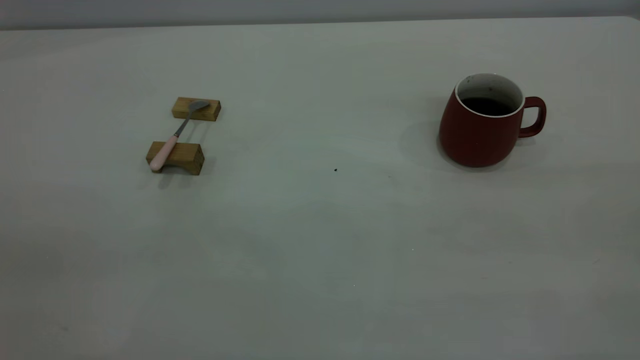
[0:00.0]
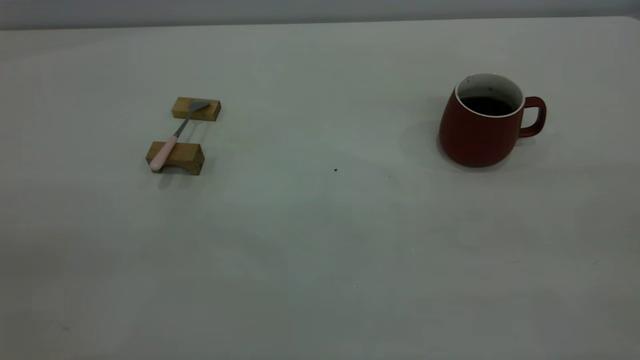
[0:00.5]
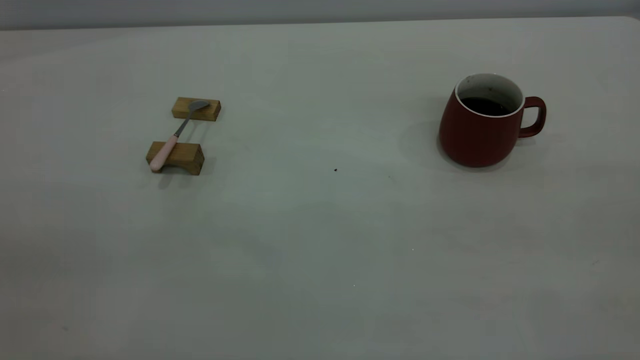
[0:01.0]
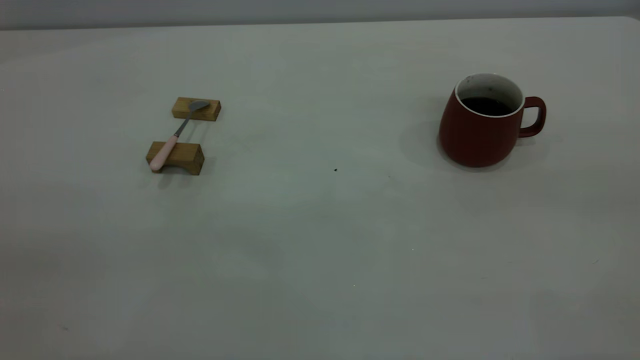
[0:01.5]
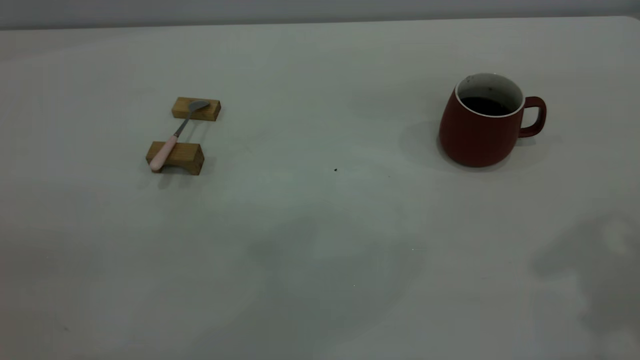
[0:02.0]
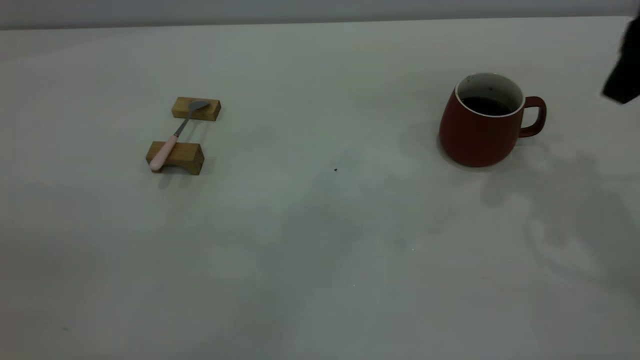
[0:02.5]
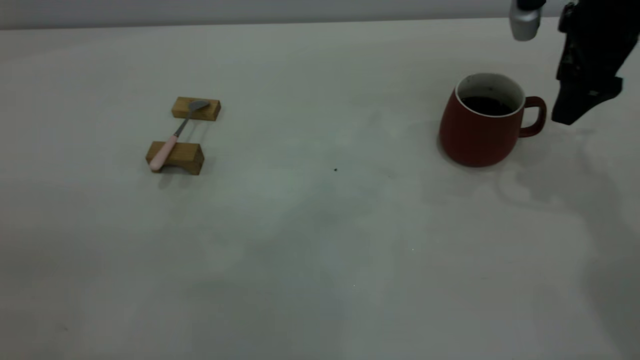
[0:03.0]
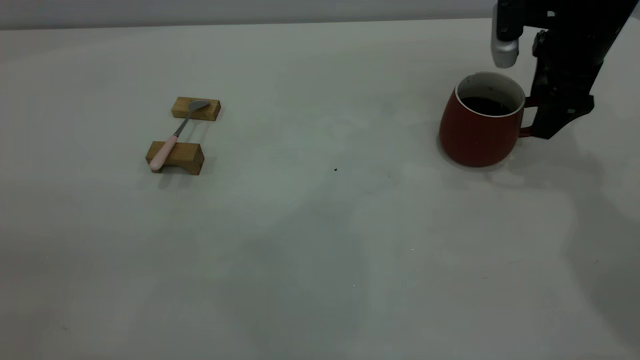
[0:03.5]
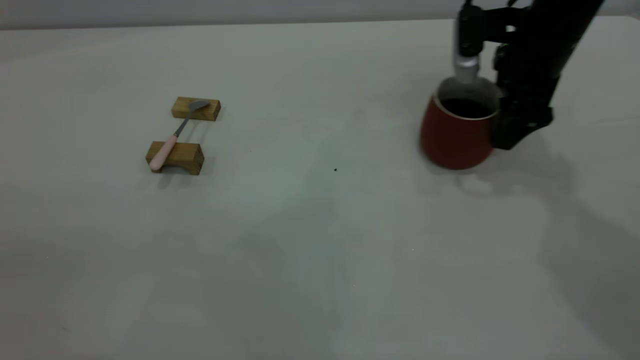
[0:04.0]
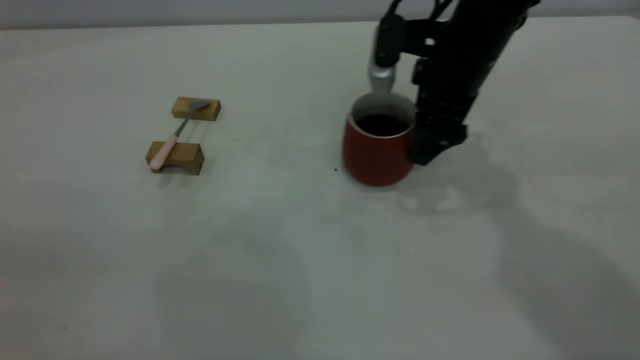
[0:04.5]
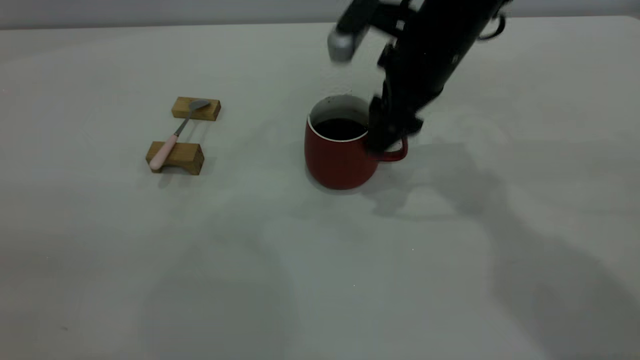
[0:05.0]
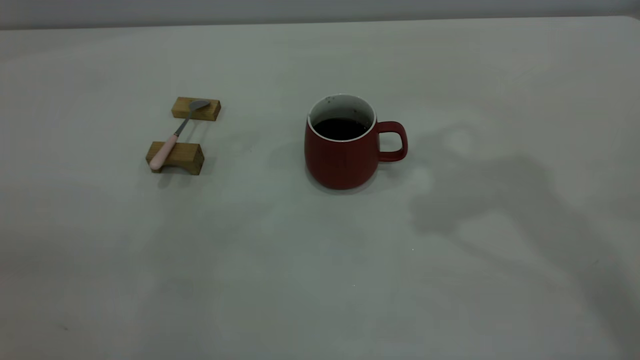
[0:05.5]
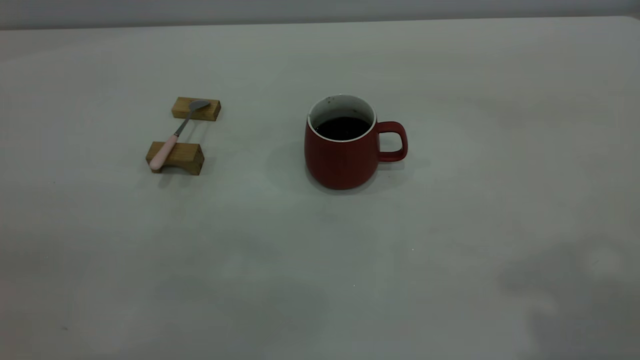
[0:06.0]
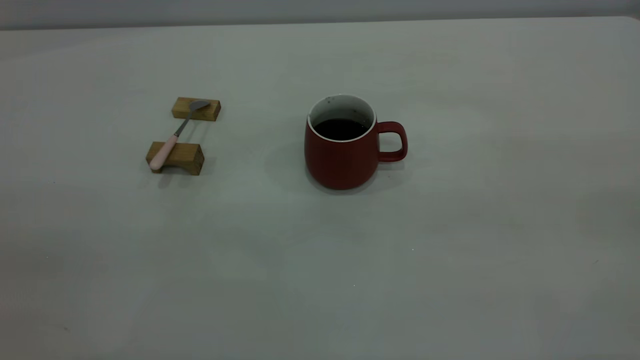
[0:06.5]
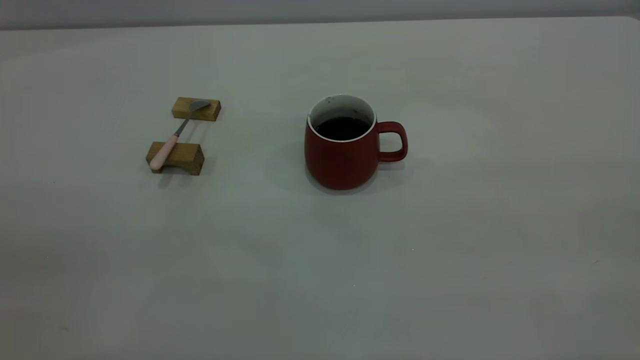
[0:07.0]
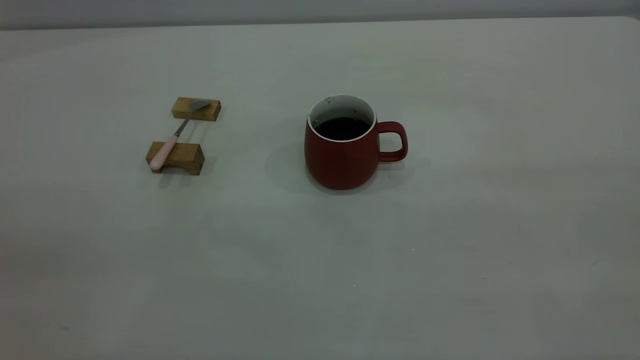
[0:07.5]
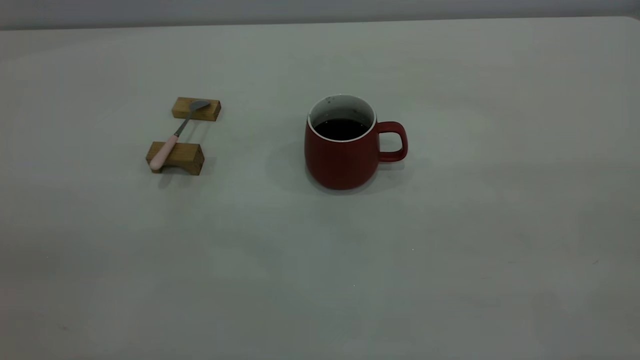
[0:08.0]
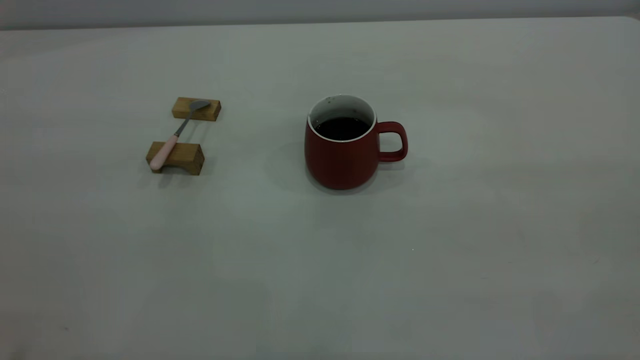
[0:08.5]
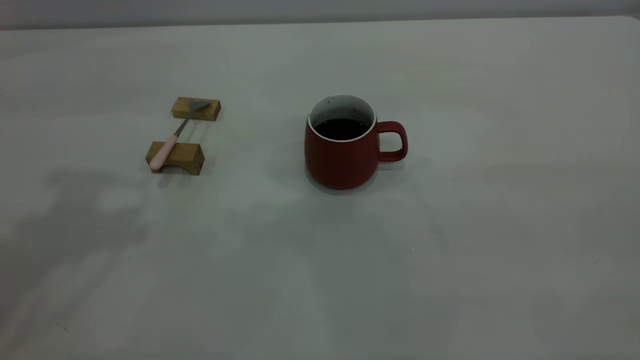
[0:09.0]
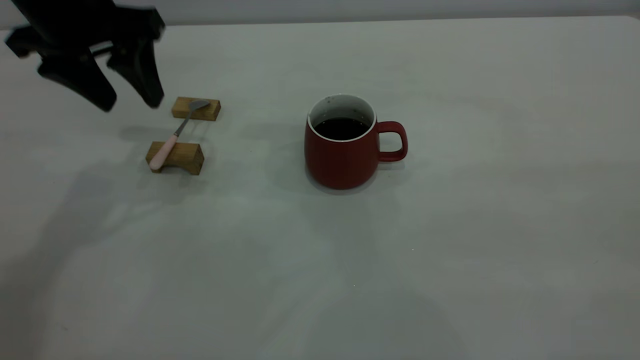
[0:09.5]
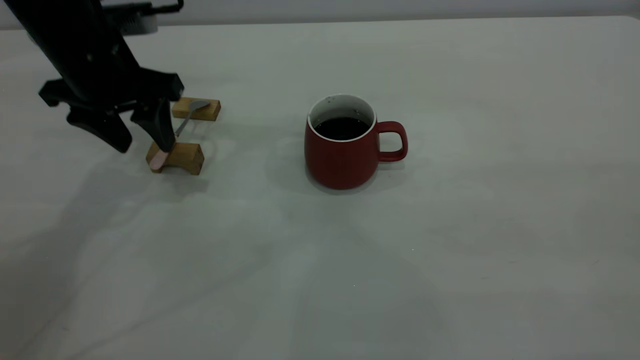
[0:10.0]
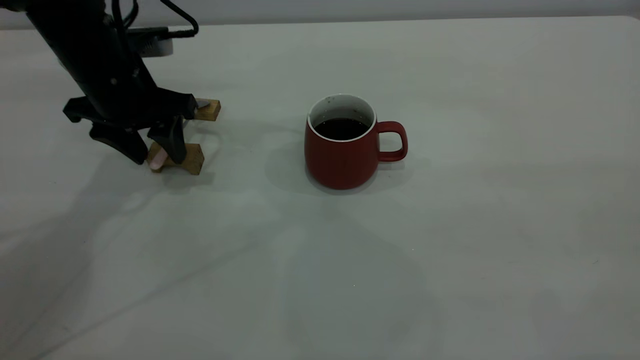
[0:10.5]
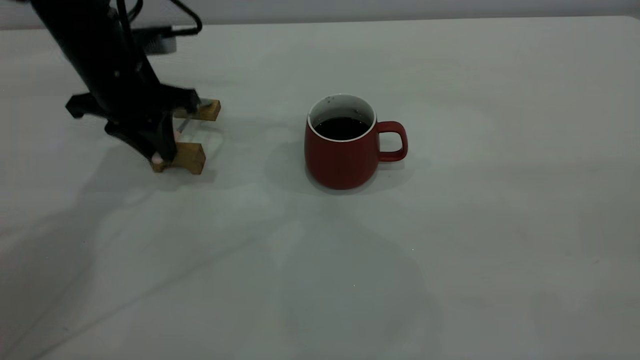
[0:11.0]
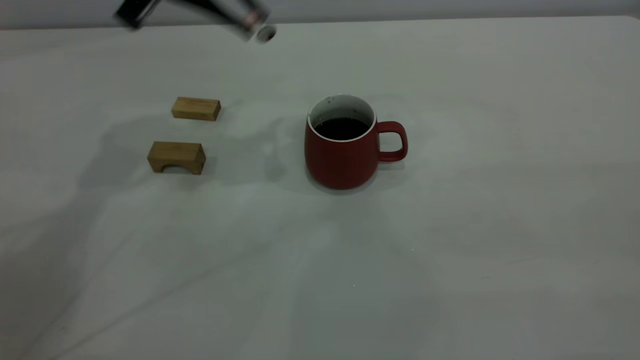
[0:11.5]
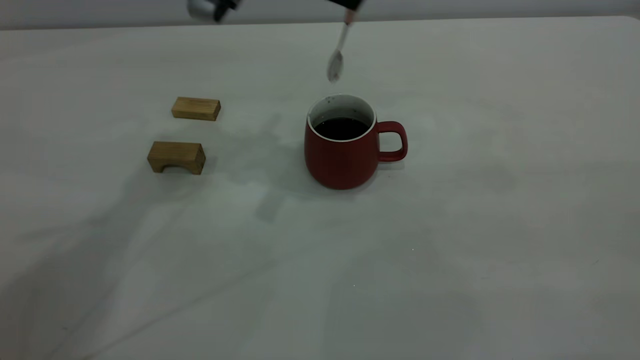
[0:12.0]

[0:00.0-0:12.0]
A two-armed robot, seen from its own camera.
Step, 0:00.0 to 0:05.0: Move the cup with coffee to the center of view.
Step, 0:05.5 to 0:11.0: Pick up the spoon.
0:02.0 to 0:04.0: The right gripper is displaced downward and forward by some 30 cm.
0:04.0 to 0:06.0: The right gripper shifts some 40 cm upward and backward.
0:08.0 to 0:10.0: The left gripper travels forward and downward by roughly 40 cm.
0:10.0 to 0:12.0: The left gripper heads to the right and upward, covering some 20 cm, and closes its fingers.

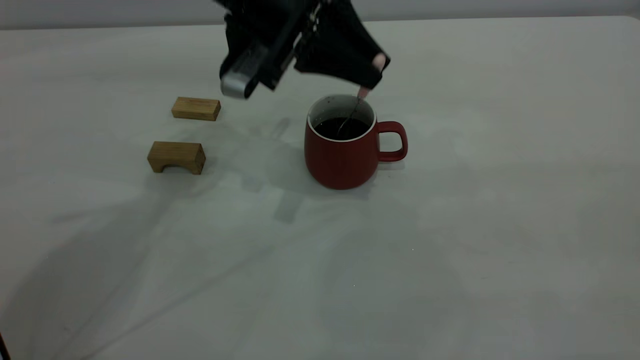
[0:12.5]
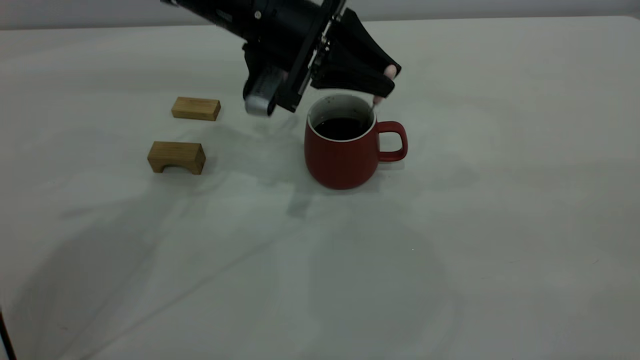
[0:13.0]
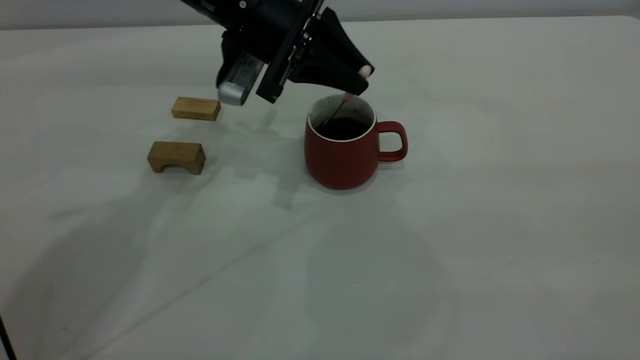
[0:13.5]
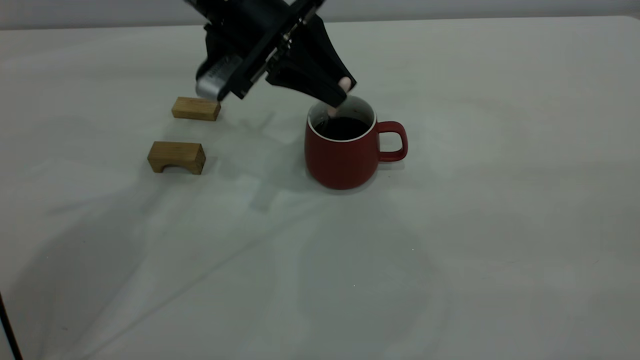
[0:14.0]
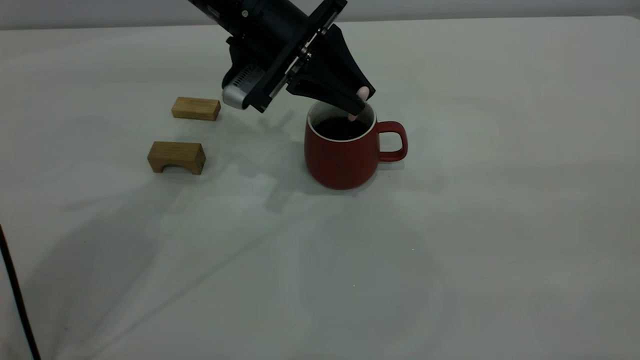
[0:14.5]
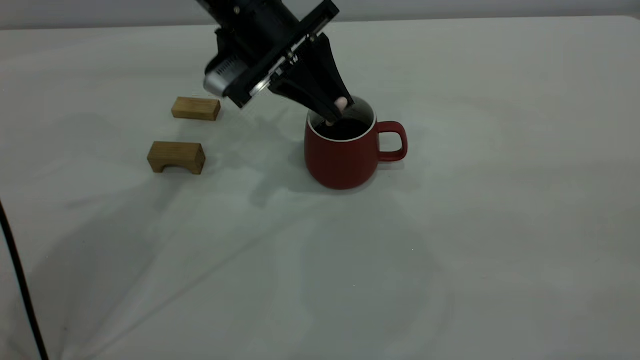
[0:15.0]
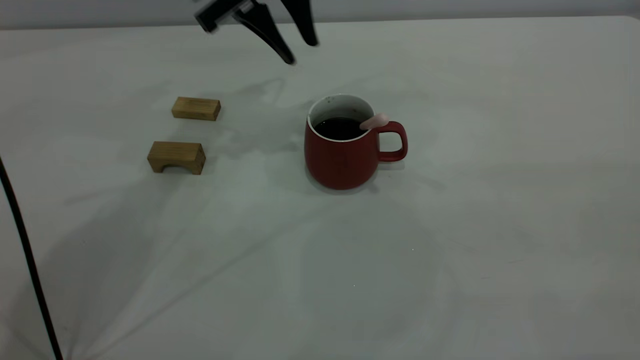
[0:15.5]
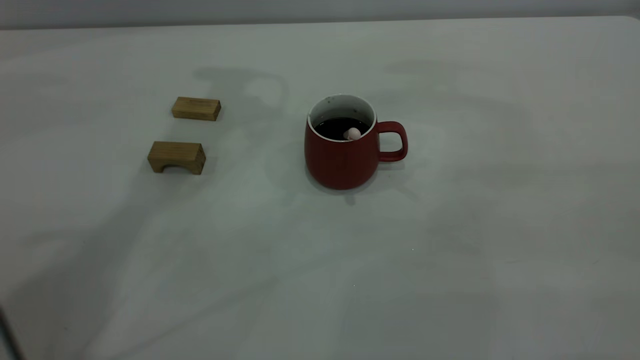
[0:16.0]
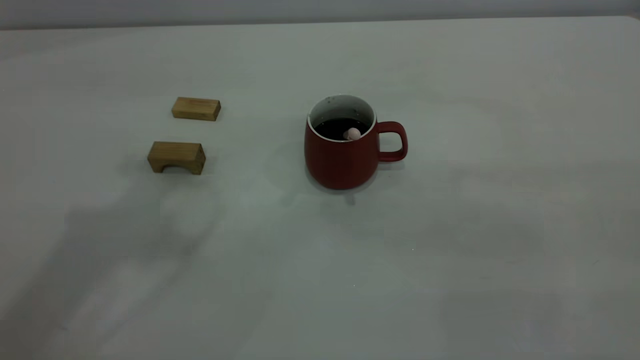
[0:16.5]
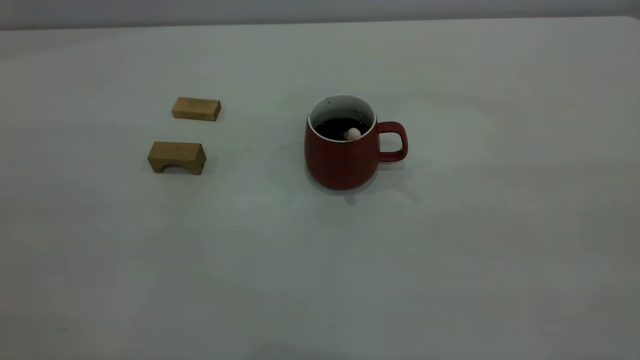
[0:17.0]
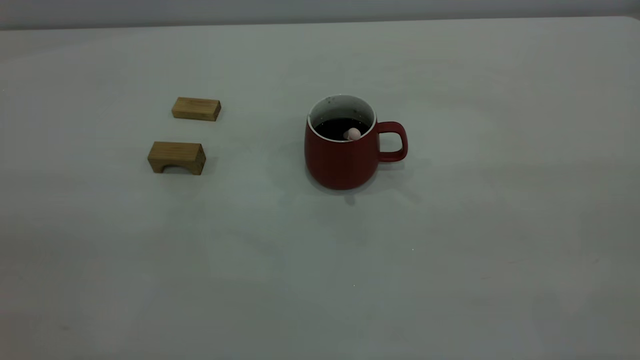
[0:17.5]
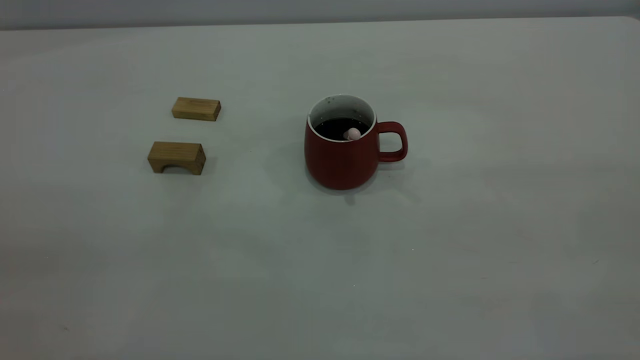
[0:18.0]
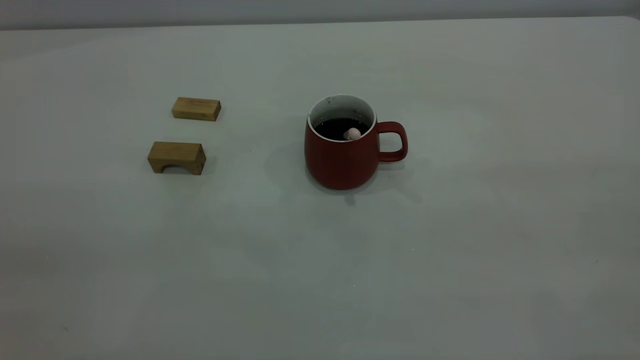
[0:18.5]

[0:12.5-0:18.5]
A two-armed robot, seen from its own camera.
Step, 0:12.5 to 0:15.0: Stir the coffee in the cup.
0:12.5 to 0:14.5: The grippers make only small movements.
0:14.5 to 0:16.5: The left gripper goes approximately 30 cm upward, backward and to the left, and opens its fingers.

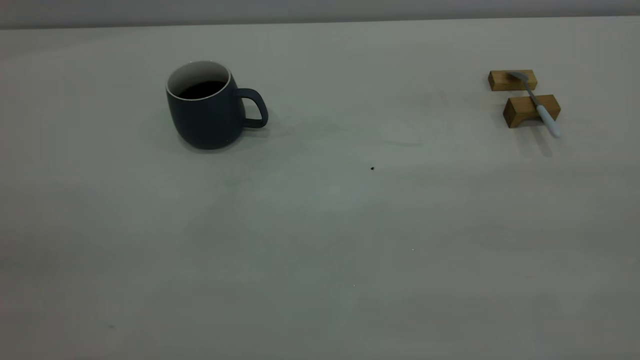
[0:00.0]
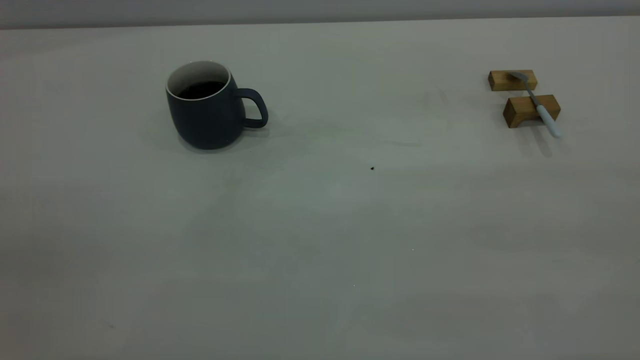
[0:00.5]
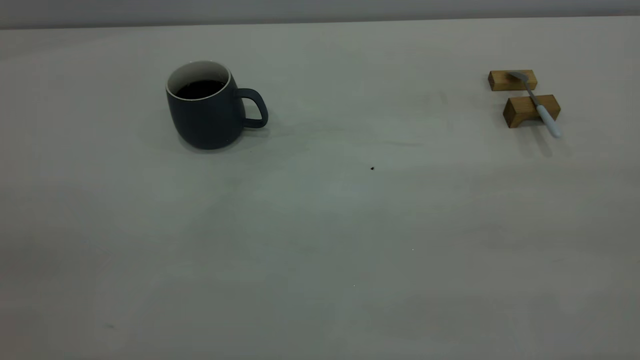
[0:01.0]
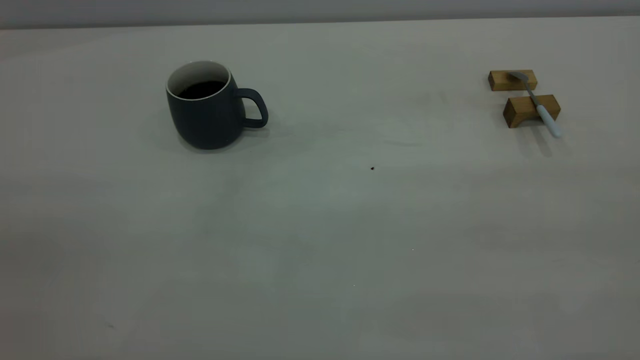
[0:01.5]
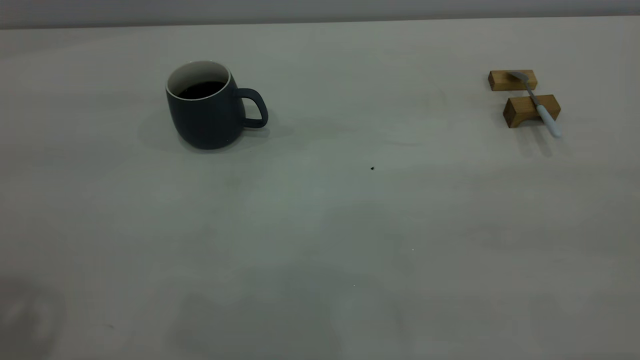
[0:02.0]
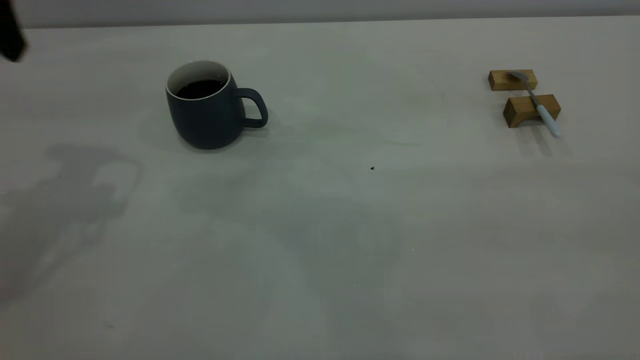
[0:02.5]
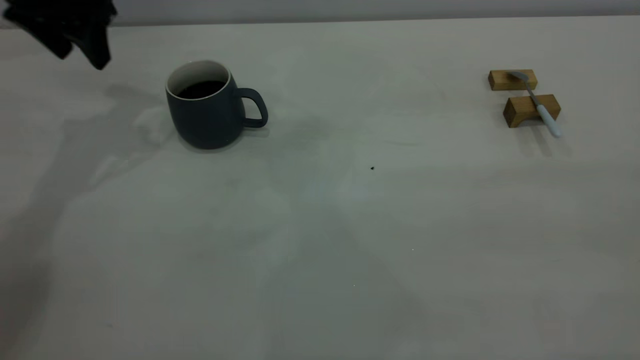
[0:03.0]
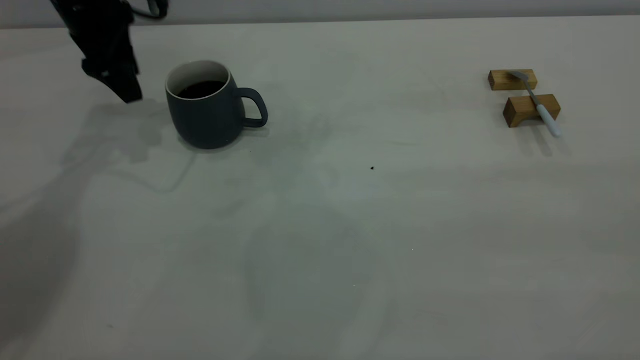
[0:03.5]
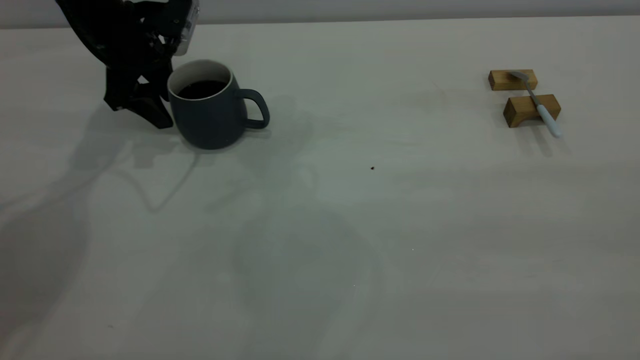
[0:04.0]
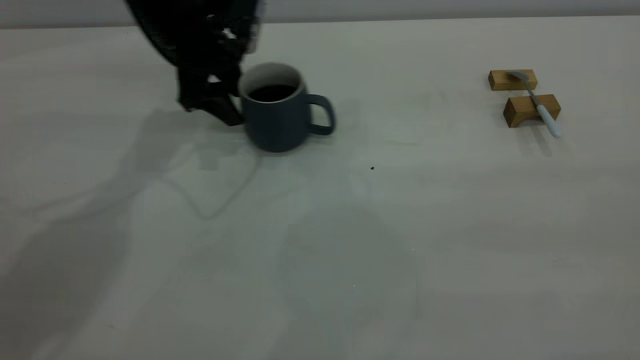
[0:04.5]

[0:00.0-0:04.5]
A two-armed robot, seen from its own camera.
0:02.0 to 0:04.5: The left gripper is displaced forward, downward and to the right by roughly 40 cm.
